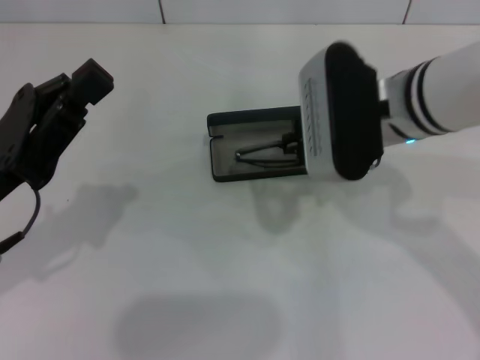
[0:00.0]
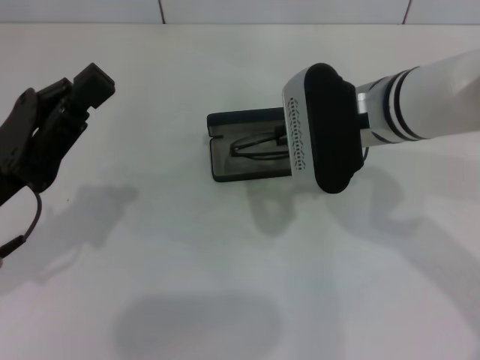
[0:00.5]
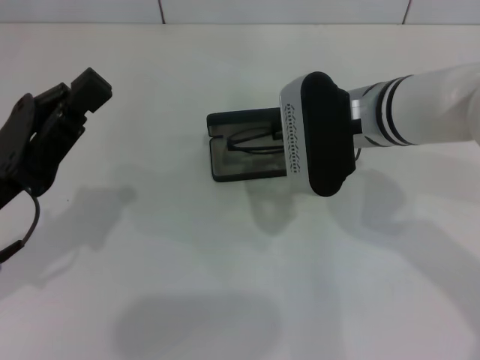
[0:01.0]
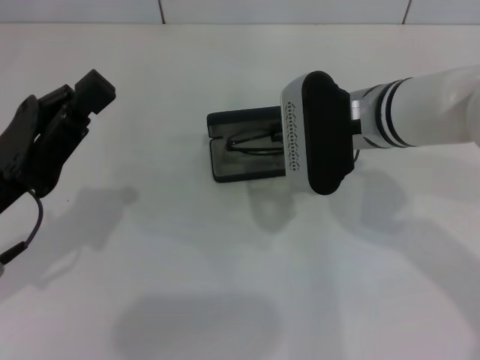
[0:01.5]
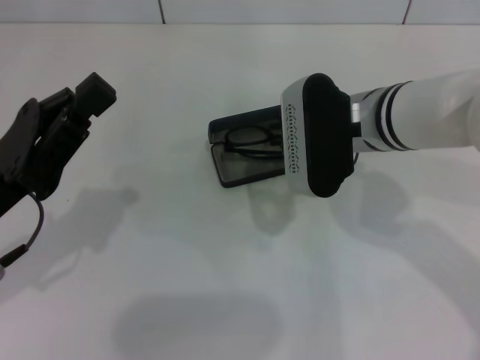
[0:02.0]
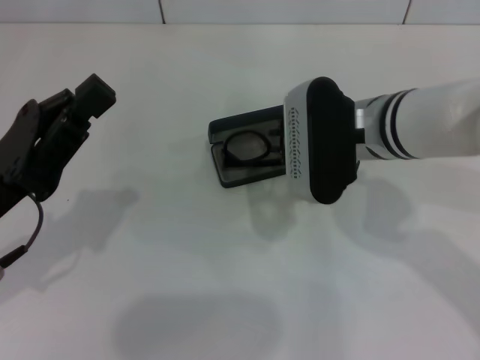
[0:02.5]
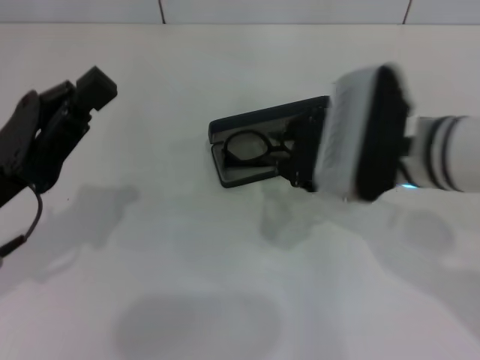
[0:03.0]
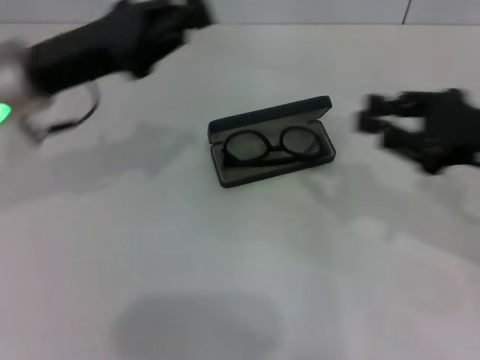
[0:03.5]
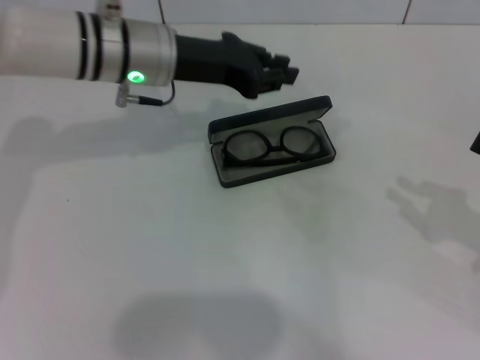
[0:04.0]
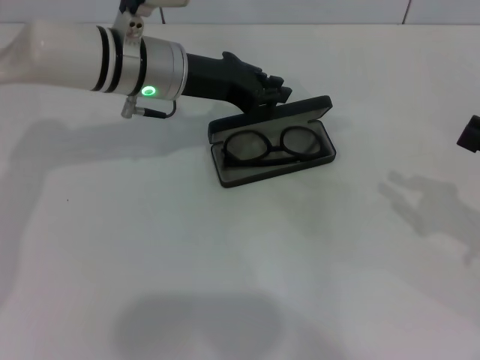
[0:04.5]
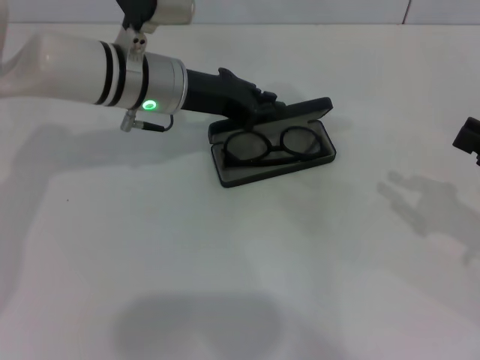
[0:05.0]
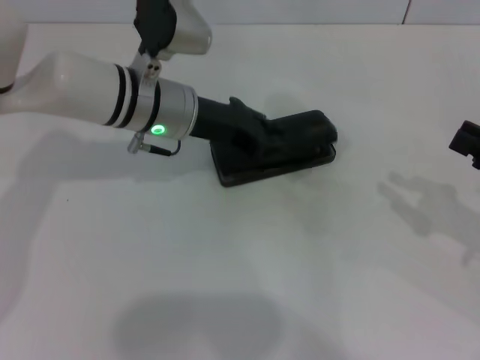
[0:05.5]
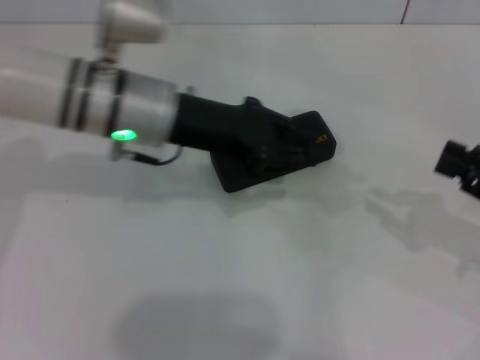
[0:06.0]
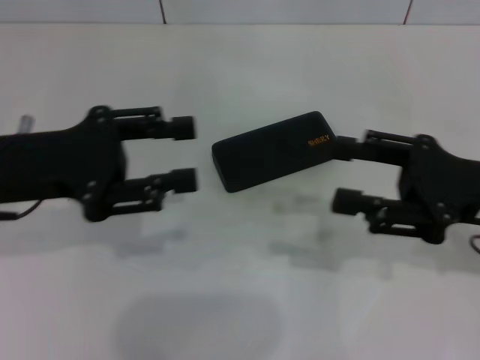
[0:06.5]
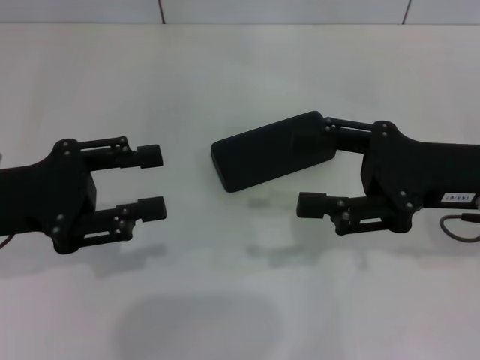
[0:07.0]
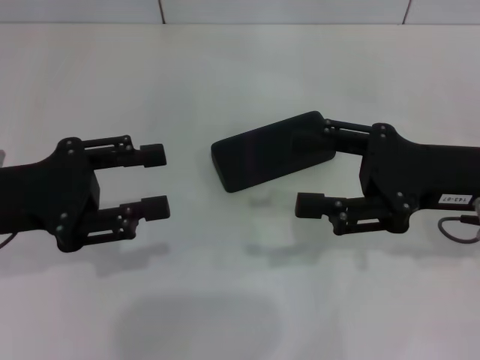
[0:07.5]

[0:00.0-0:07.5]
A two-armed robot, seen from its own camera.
Step, 0.0 to 2.5 s: Put the glasses into the case with your right hand.
Step, 3.0 to 5.5 s: Close the glasses case with your left hand.
0.0 to 2.0 s: The grippers make only small movements.
2.0 to 4.0 s: The left gripper is displaced forward and to the right by about 25 cm, while the right gripper goes approximately 30 cm to the right and backward.
4.0 to 5.5 s: There are only small adjustments of the grippers.
5.5 to 7.5 s: The right gripper goes approximately 10 cm to the left, and opens its fingers. Meanwhile the left gripper heads to the left and backward, covering roughly 20 cm, and opens its fingers.

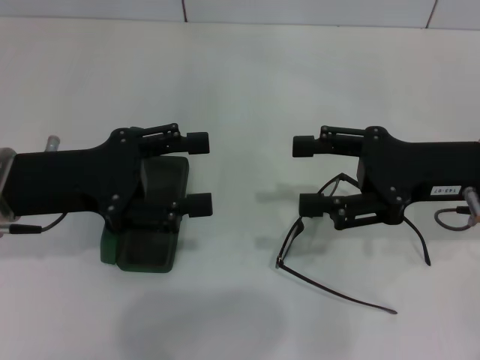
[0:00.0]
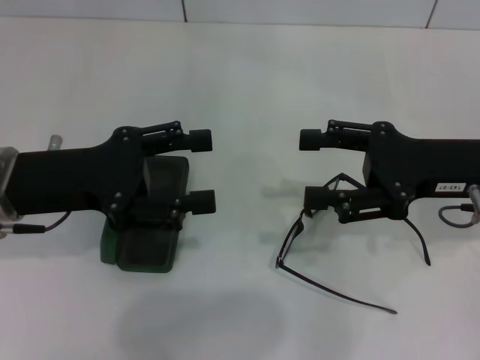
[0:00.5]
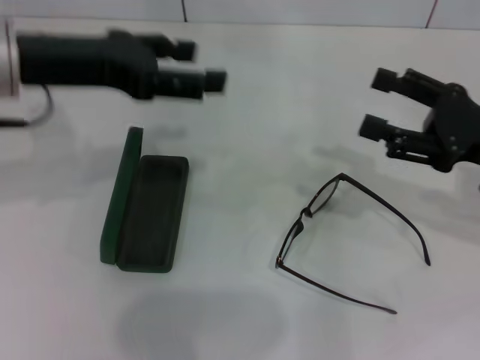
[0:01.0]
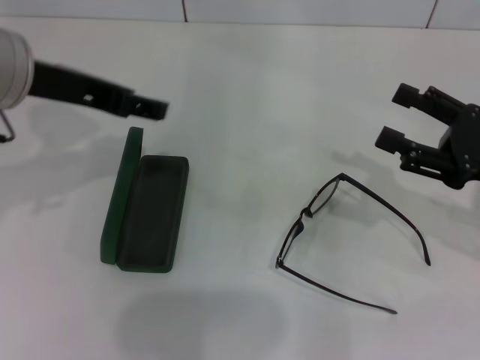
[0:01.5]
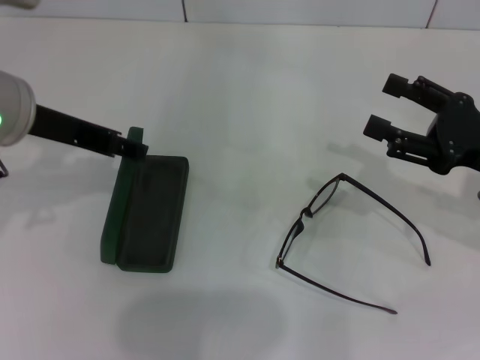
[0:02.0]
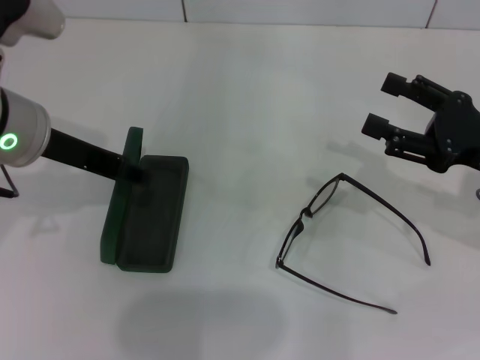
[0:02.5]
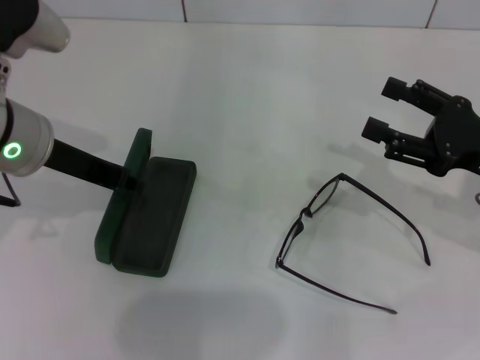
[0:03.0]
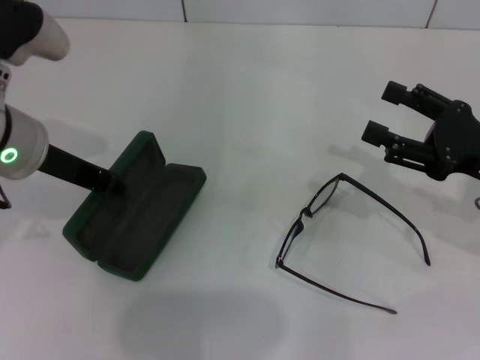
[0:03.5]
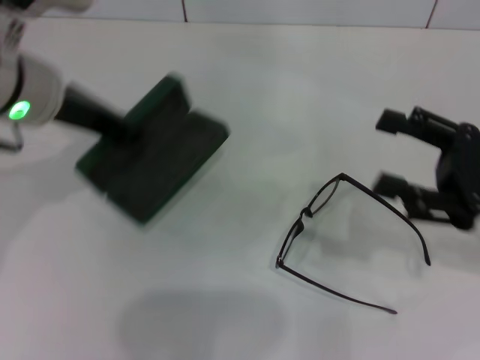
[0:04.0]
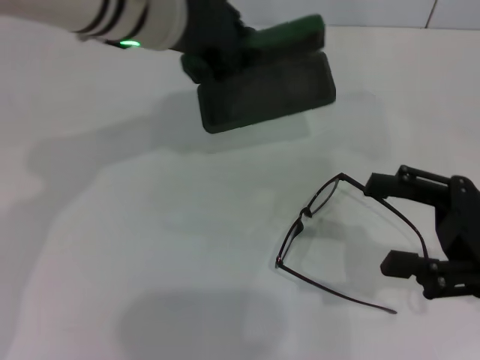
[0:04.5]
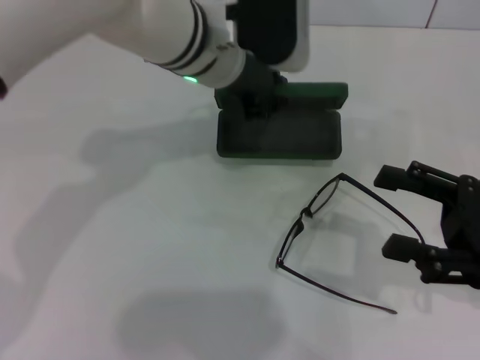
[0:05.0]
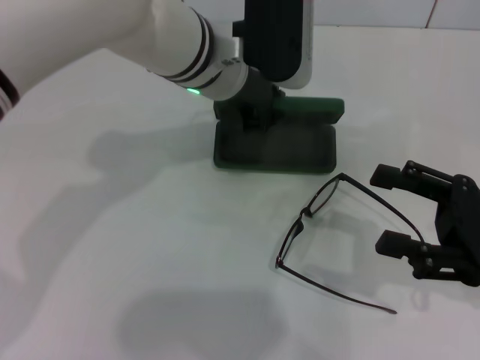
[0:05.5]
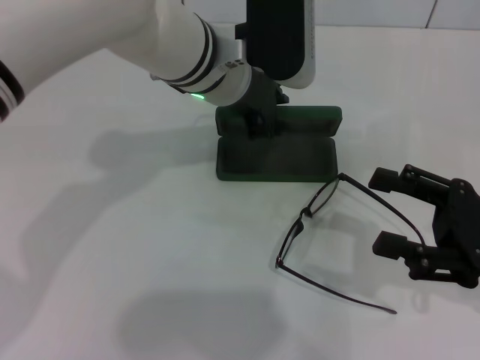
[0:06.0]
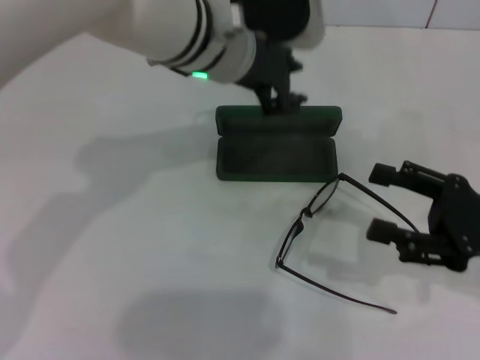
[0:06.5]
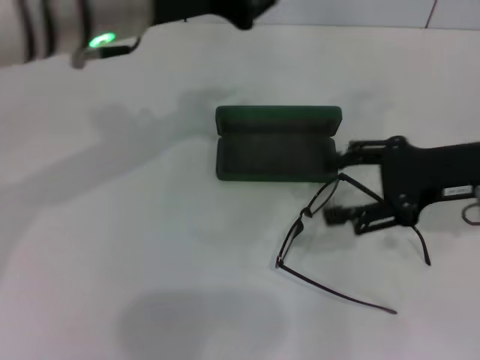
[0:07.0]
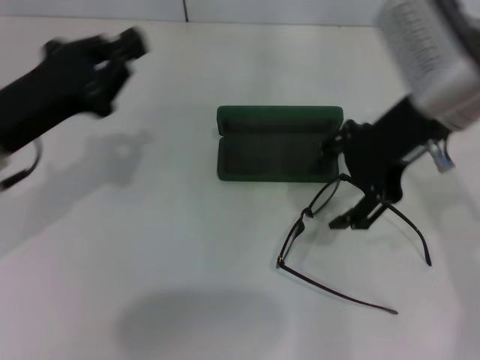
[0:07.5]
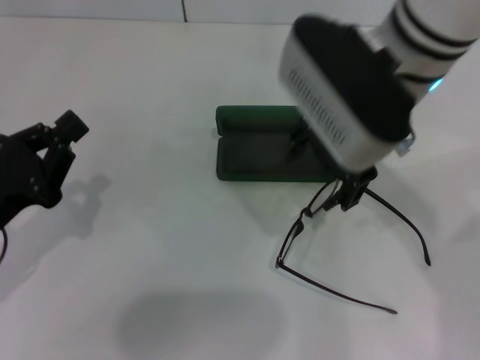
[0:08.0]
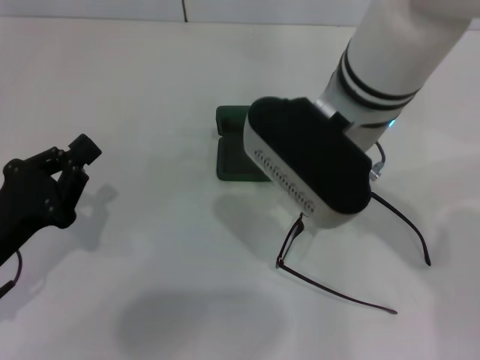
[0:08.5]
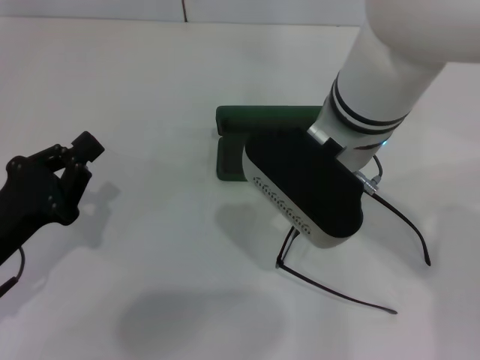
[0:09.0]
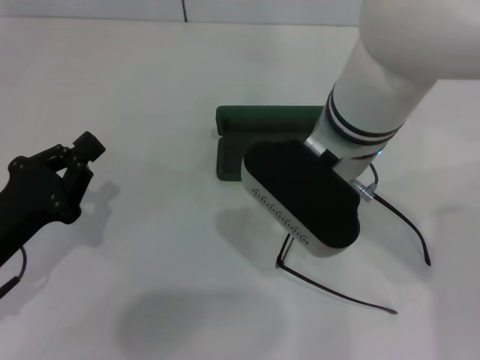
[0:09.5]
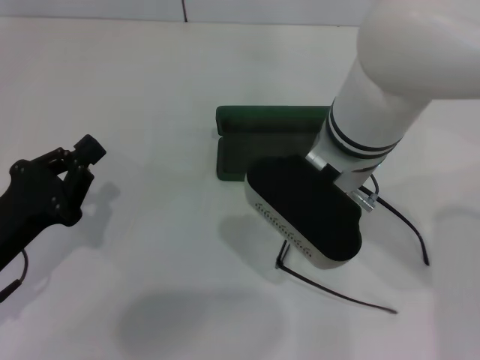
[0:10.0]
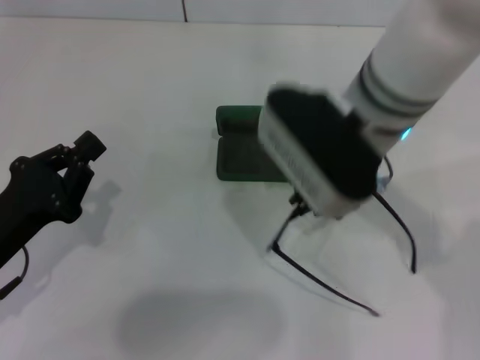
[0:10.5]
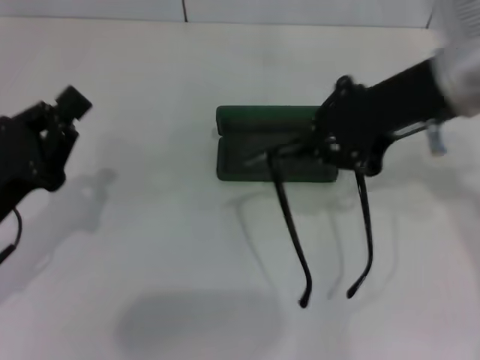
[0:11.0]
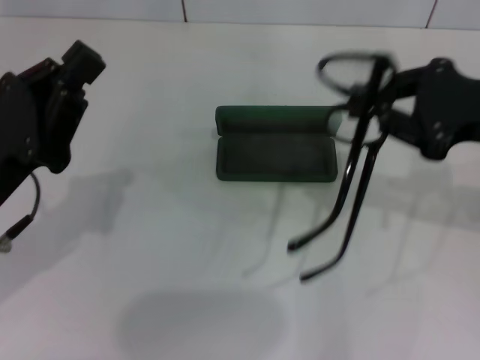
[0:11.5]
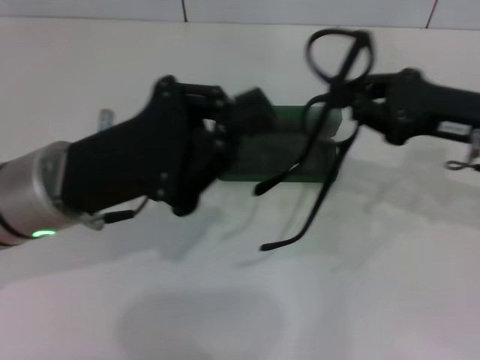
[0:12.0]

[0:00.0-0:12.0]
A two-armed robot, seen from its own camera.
Step, 0.0 to 3.5 s: Grab the glasses case with your left hand.
Step, 4.0 to 6.0 s: Place the glasses case in the center of the table with your left hand.
Step, 6.5 to 10.0 s: Grab the eyeglass frame with your right hand.
0.0 to 2.0 s: The right gripper travels to the right by about 5 cm. The left gripper moves upward, about 5 cm.
2.0 to 4.0 s: The left gripper closes up.
4.0 to 6.0 s: The left gripper shifts approximately 15 cm to the right and forward.
6.0 to 8.0 s: The left gripper is displaced to the left, backward and downward by roughly 30 cm; the right gripper is displaced to the left, upward and forward by roughly 25 cm.
8.0 to 10.0 s: The right gripper travels downward by approximately 5 cm, and closes.
10.0 to 12.0 s: The left gripper travels to the right, upward and forward by about 15 cm; the right gripper shifts about 20 cm to the right, and closes its fingers.

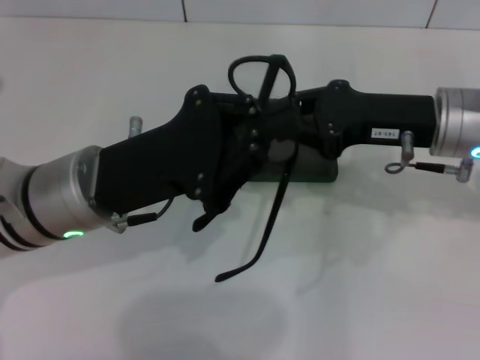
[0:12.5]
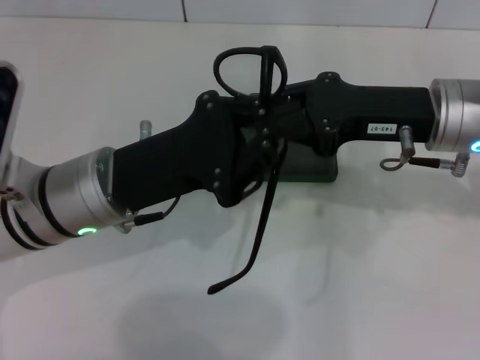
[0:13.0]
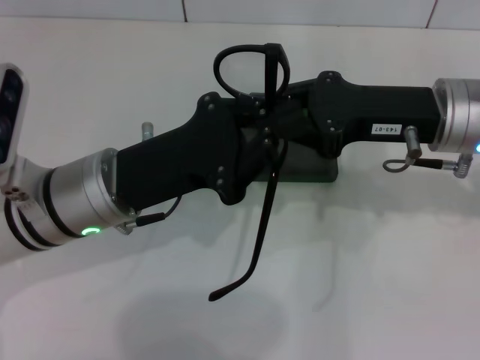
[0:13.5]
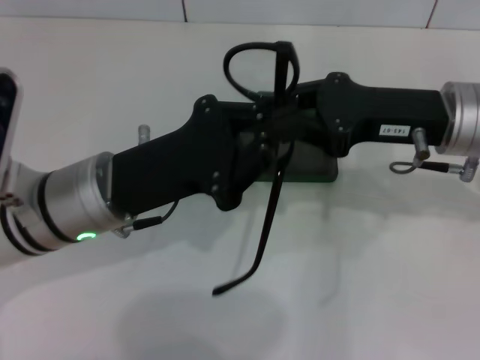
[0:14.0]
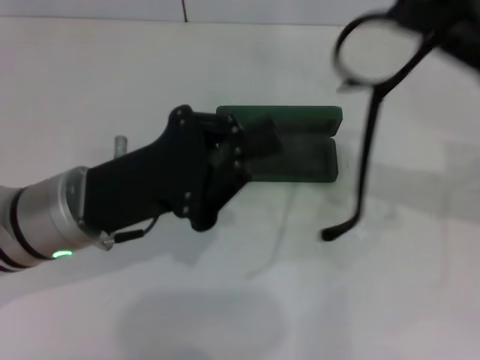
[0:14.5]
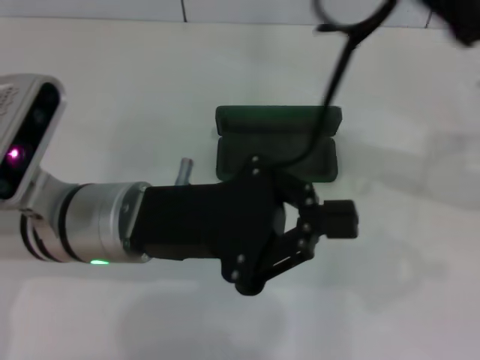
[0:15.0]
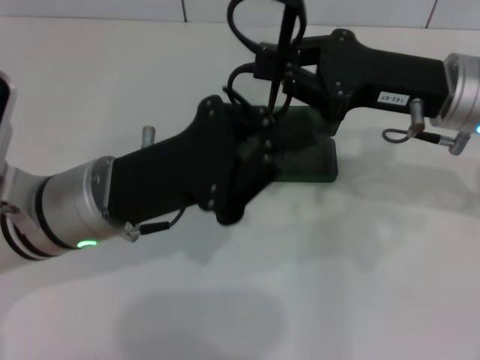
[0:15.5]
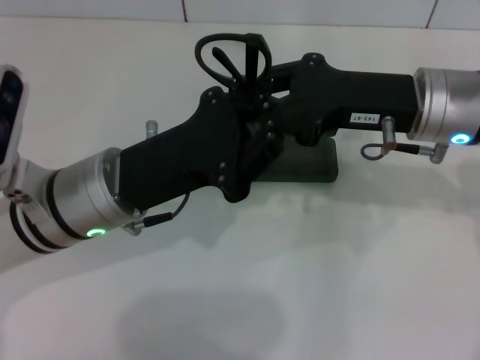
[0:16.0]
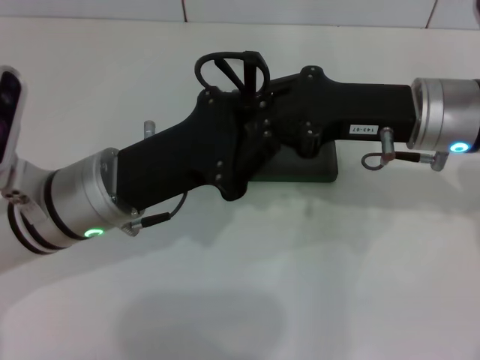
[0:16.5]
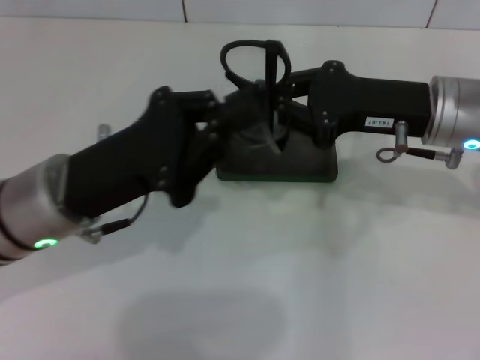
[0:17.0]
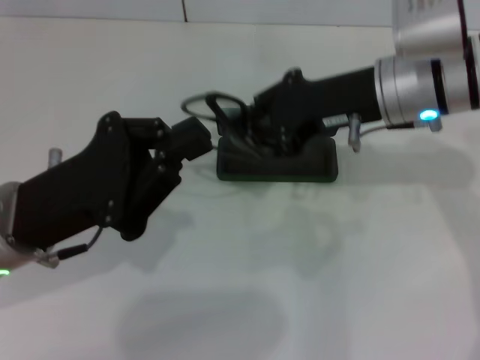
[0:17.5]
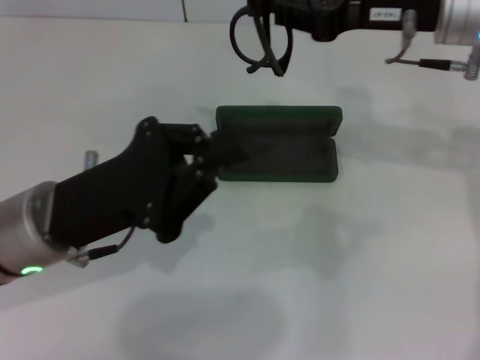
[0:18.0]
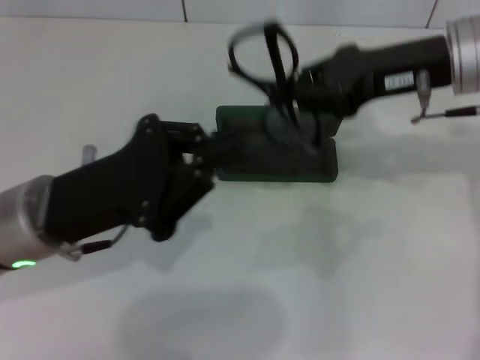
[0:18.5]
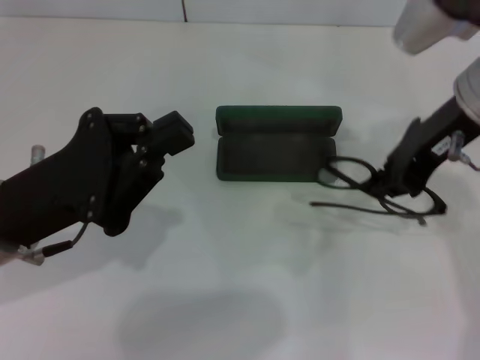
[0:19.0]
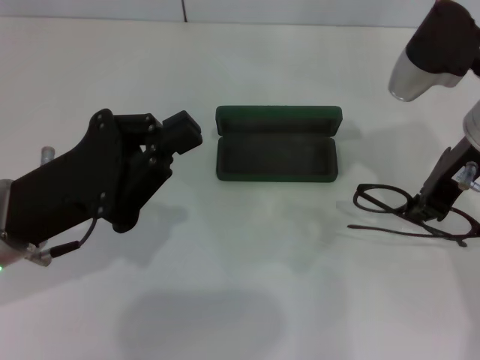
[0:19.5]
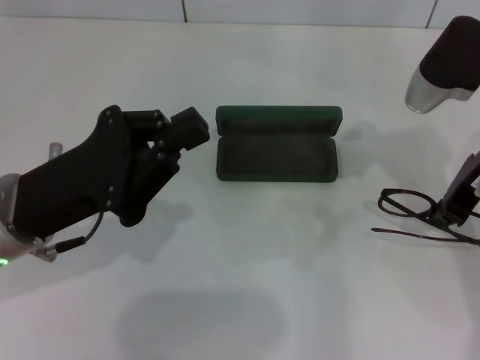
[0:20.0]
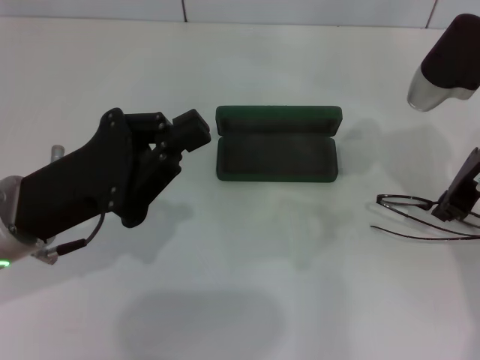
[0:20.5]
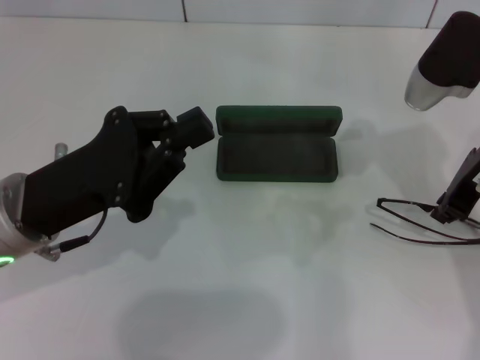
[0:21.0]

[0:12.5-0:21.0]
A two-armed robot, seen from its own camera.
12.5 to 14.5 s: The right gripper heads to the right, covering roughly 10 cm.
14.5 to 16.5 s: The right gripper moves to the left, roughly 10 cm.
16.5 to 19.0 s: The right gripper goes approximately 5 cm upward; the left gripper is displaced to the left by approximately 5 cm.
19.0 to 21.0 s: The right gripper changes place by approximately 5 cm.
